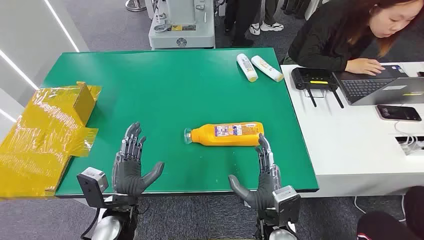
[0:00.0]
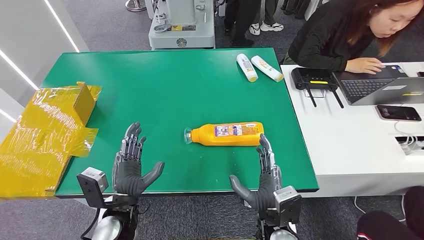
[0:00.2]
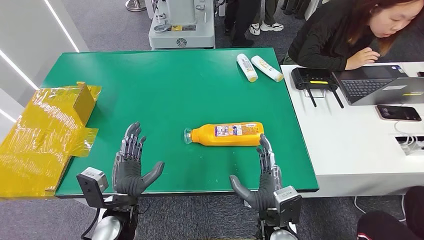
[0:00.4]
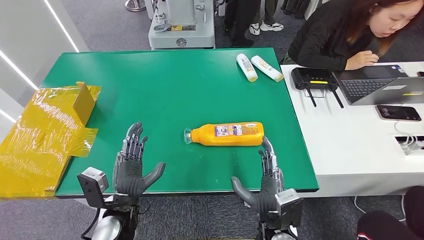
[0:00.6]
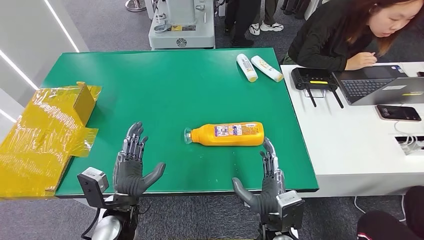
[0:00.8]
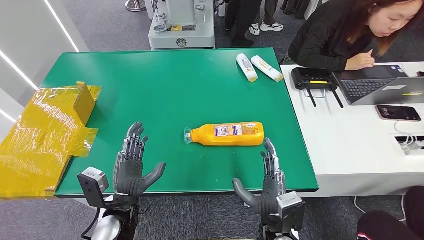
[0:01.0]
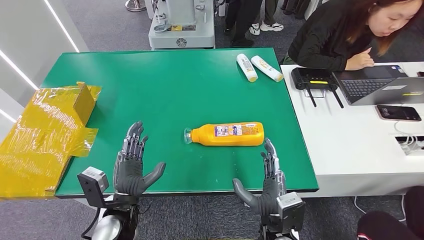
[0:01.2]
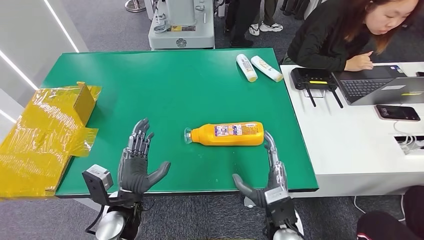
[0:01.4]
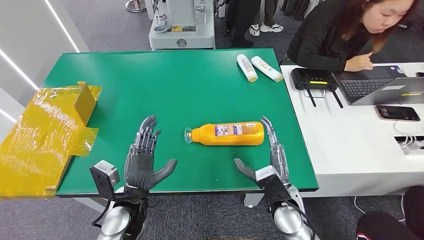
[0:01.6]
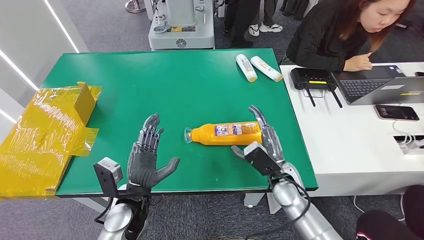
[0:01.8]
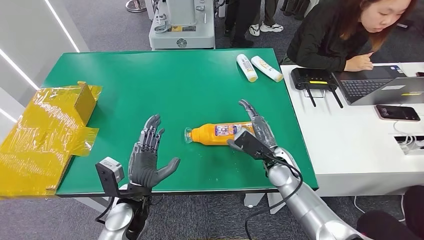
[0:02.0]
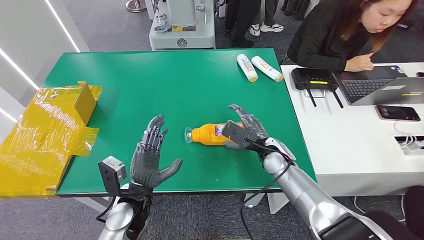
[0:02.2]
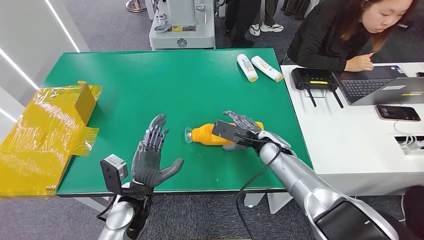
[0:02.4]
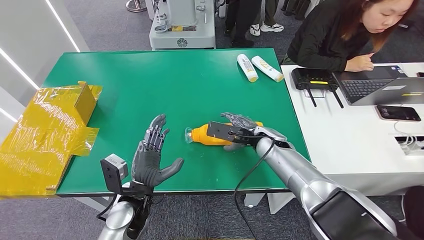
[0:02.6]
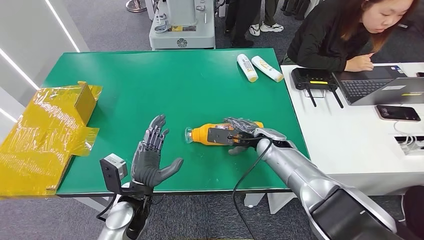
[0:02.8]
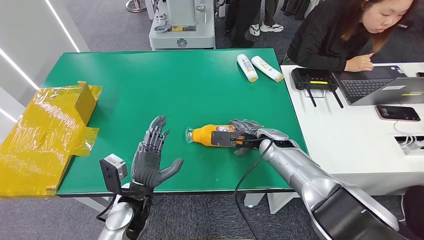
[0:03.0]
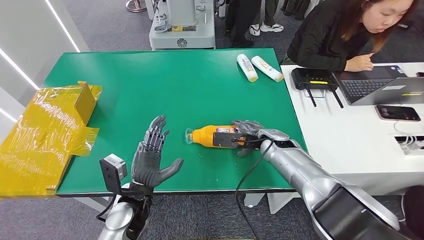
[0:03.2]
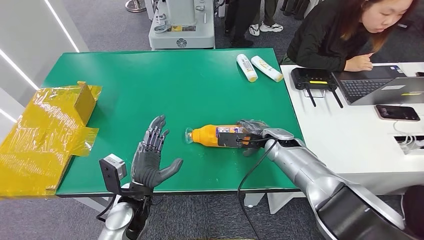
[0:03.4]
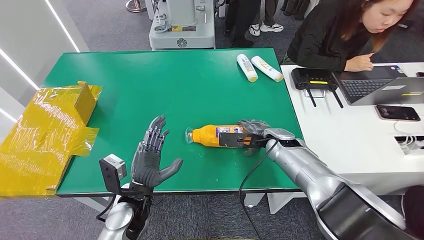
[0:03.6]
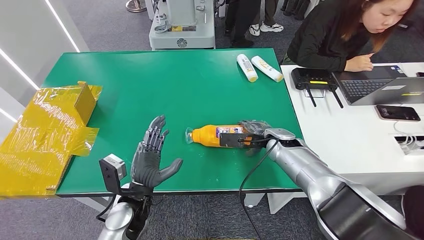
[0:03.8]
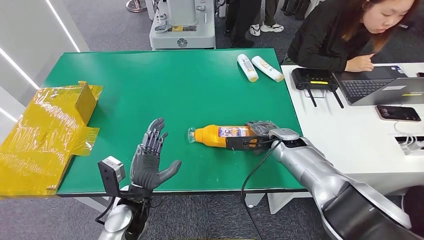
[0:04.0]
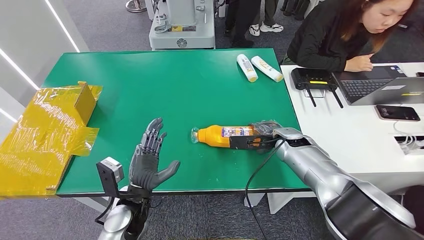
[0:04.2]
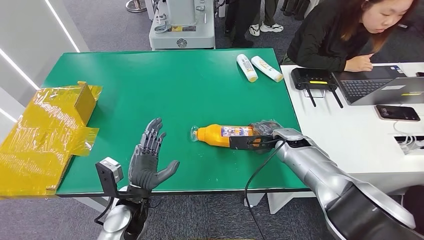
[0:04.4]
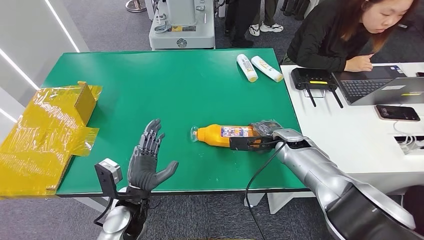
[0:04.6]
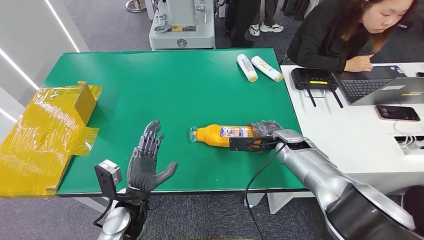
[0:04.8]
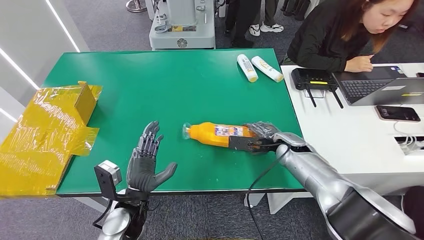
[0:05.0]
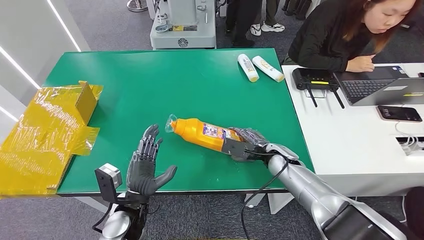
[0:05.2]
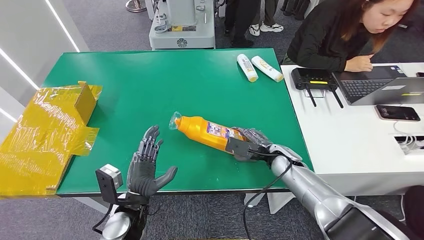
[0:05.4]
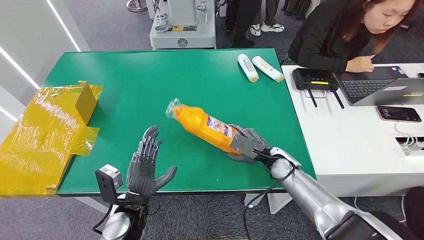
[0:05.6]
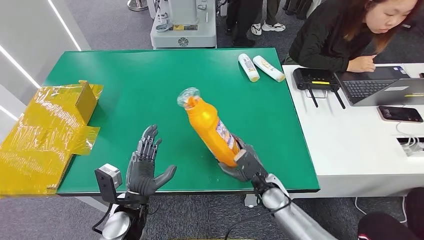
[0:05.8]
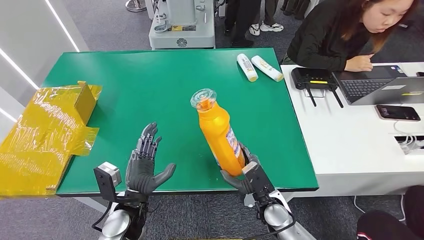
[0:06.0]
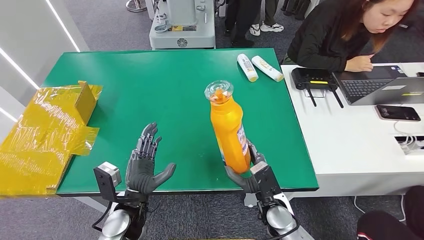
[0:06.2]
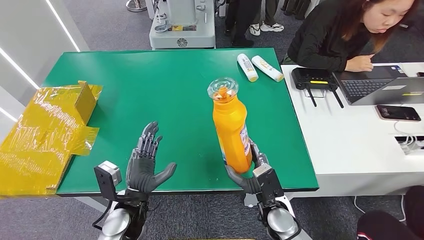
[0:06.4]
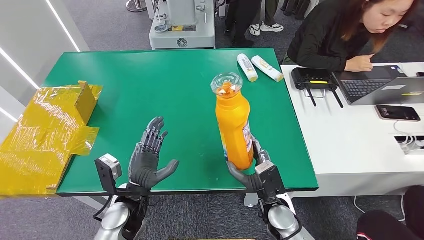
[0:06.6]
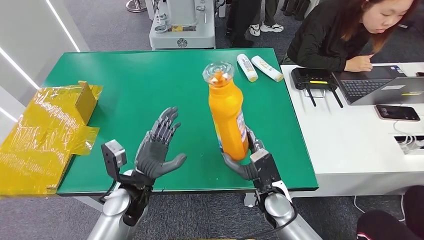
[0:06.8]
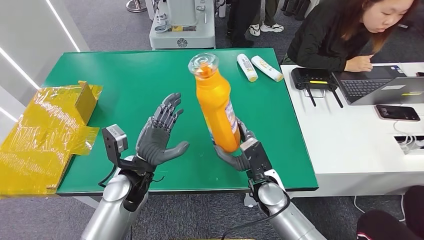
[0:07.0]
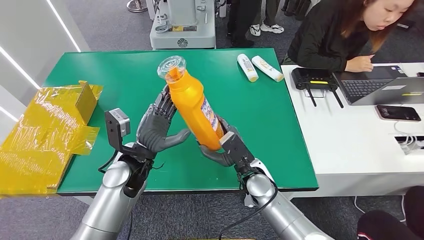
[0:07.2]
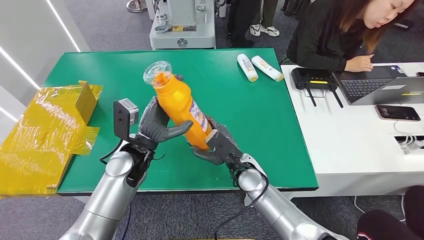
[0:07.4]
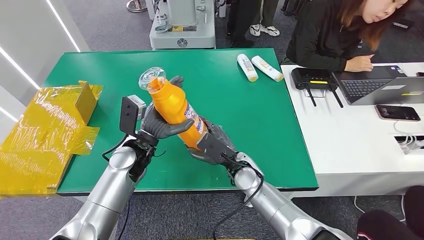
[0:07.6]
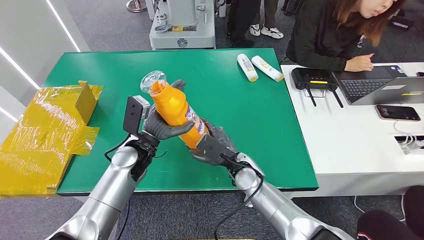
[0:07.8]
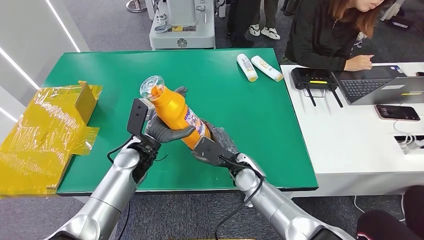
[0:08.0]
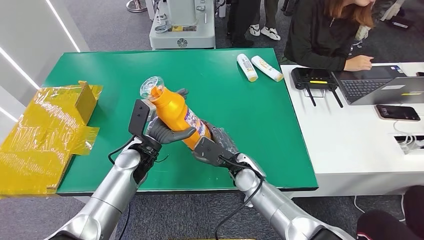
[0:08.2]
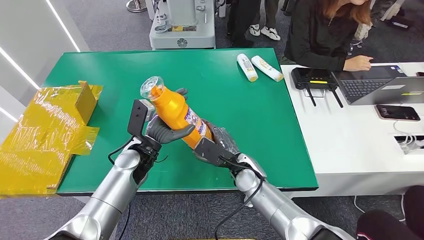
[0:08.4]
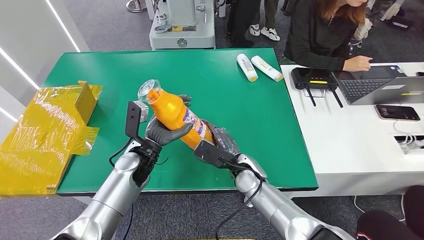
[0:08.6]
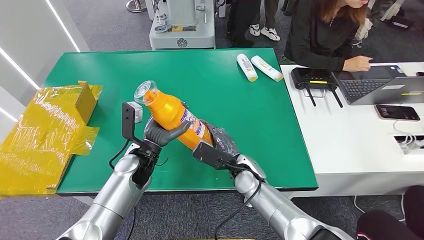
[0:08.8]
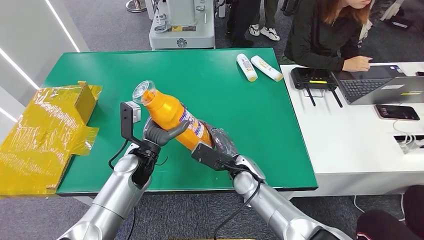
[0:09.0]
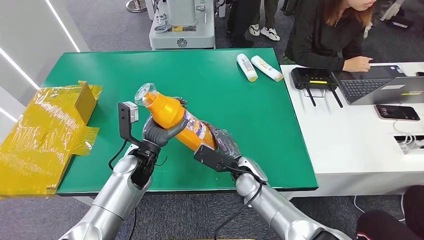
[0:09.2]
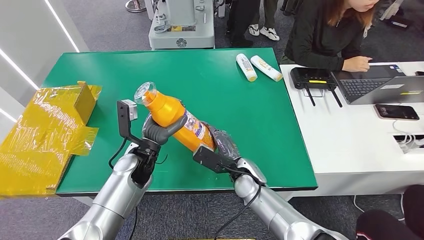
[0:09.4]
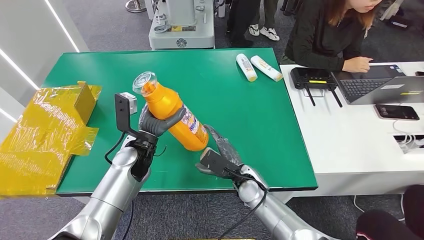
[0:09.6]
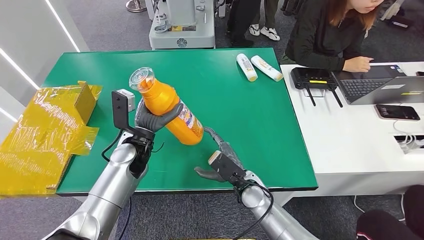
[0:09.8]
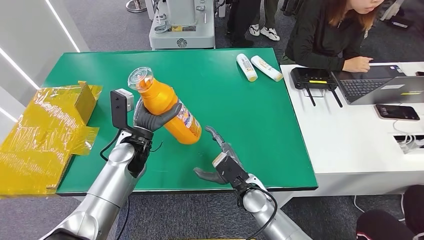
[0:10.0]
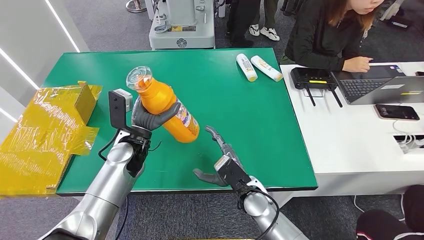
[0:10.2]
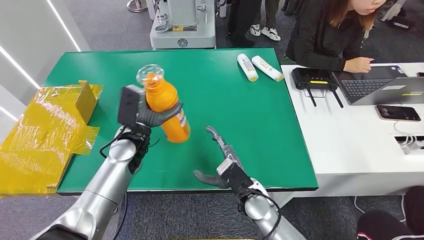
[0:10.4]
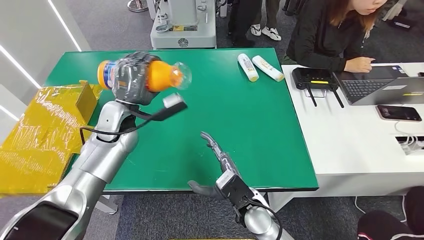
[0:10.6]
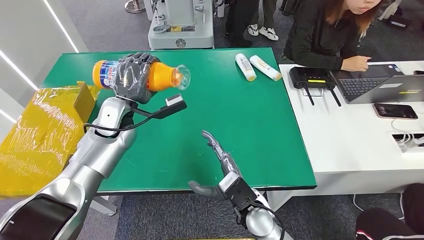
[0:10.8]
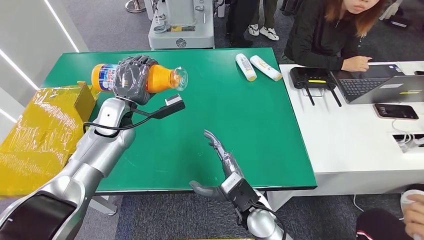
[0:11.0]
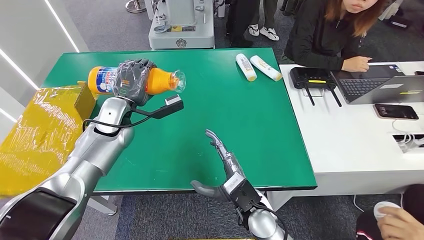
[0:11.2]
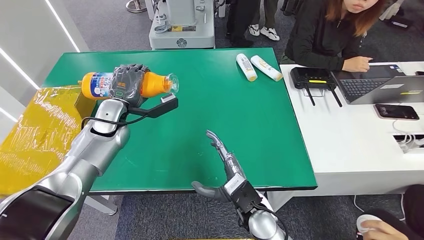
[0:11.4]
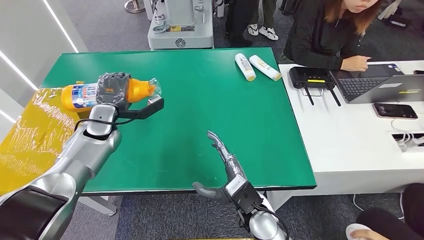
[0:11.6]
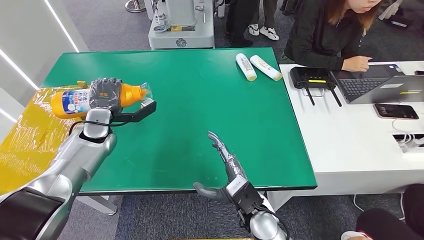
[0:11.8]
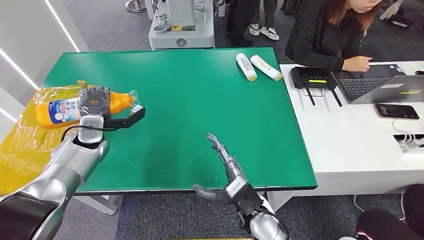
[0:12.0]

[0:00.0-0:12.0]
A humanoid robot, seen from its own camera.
Step, 0:00.0 to 0:06.6: Pick up the bottle from the table.
0:01.6 to 0:03.0: The right hand is displaced forward by some 15 cm.
0:03.0 to 0:04.4: The right hand shifts some 5 cm to the right.
0:04.4 to 0:06.0: The right hand heads backward and downward, covering about 20 cm.
0:06.0 to 0:07.6: The right hand heads to the left, forward and upward, covering about 15 cm; the left hand is displaced forward and upward by some 15 cm.
0:07.6 to 0:09.0: The hands stay close to where they were, moving slightly.
0:09.0 to 0:10.4: The left hand changes place by approximately 5 cm. Meanwhile the right hand moves backward, roughly 5 cm.

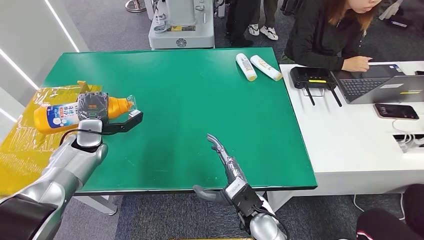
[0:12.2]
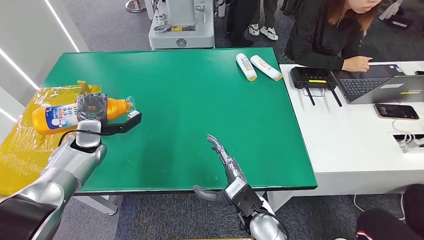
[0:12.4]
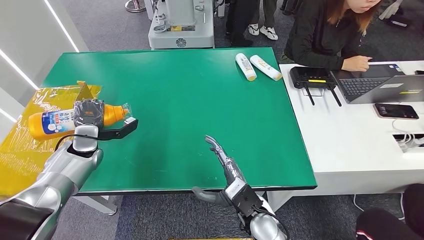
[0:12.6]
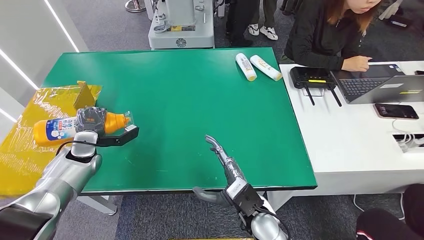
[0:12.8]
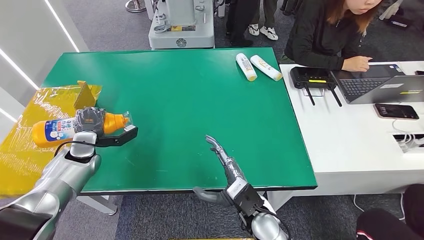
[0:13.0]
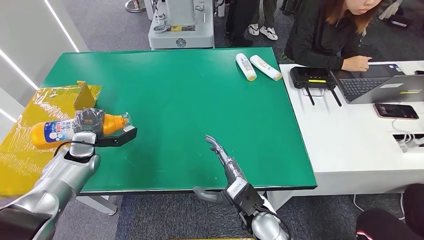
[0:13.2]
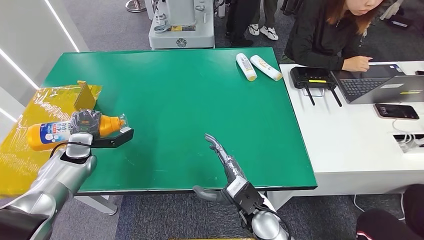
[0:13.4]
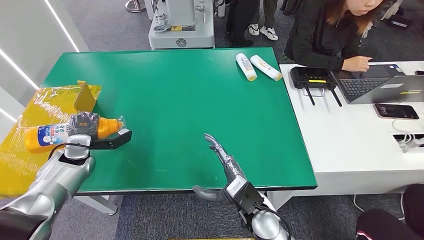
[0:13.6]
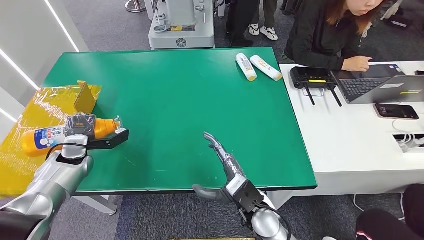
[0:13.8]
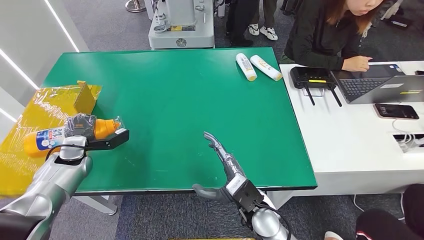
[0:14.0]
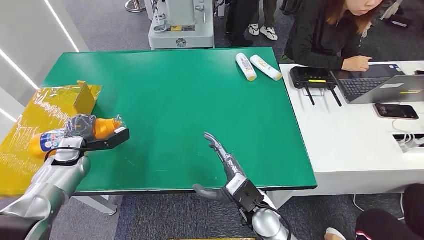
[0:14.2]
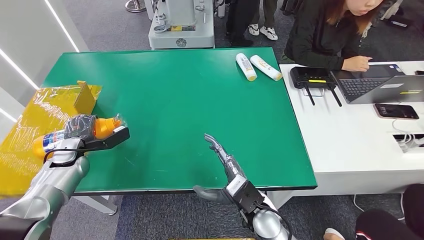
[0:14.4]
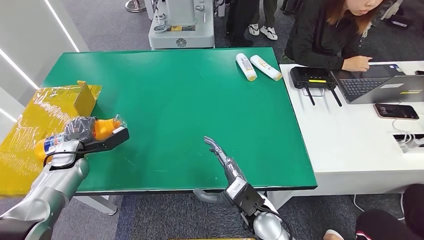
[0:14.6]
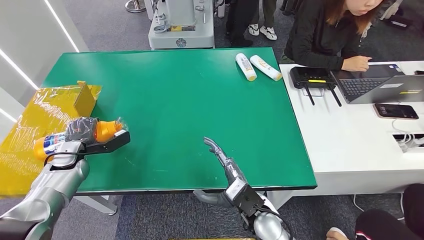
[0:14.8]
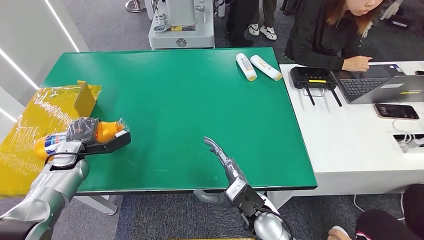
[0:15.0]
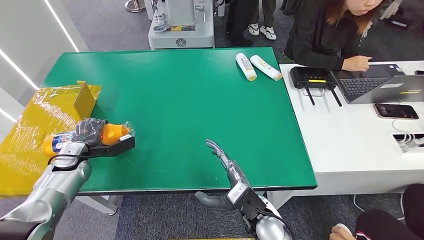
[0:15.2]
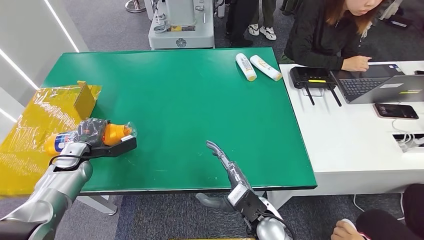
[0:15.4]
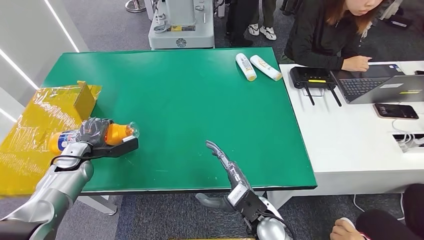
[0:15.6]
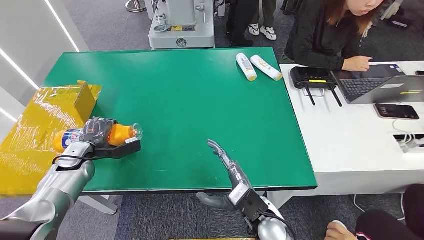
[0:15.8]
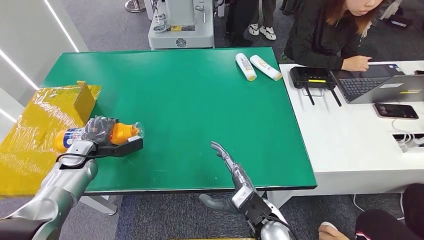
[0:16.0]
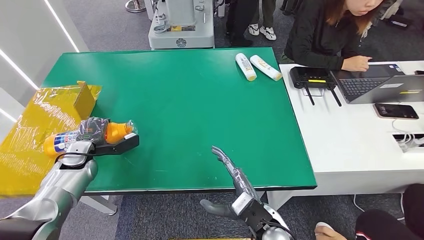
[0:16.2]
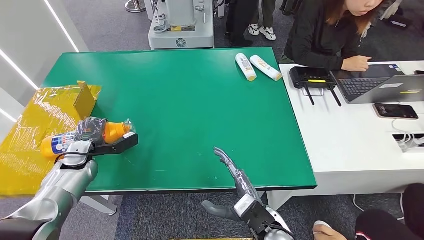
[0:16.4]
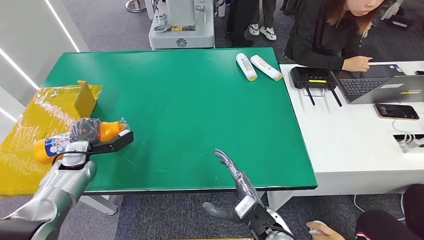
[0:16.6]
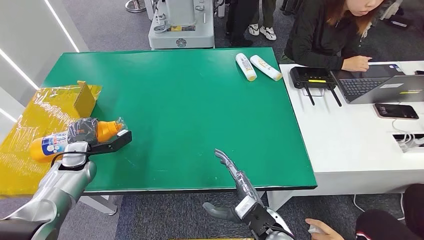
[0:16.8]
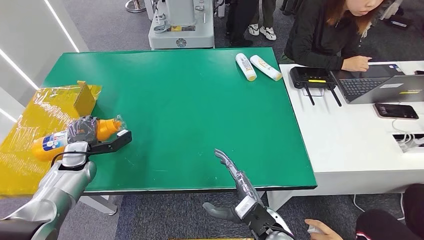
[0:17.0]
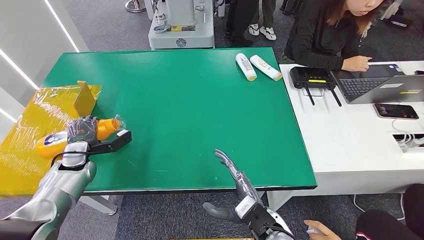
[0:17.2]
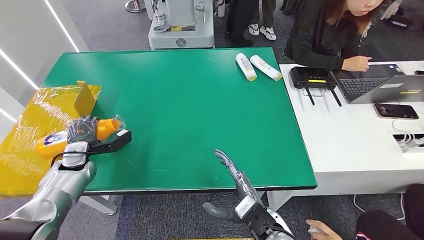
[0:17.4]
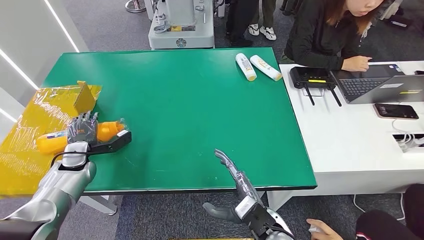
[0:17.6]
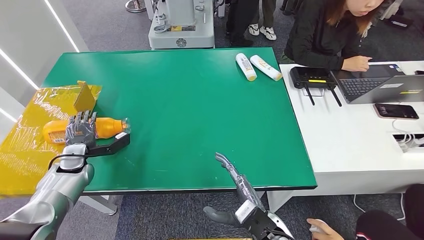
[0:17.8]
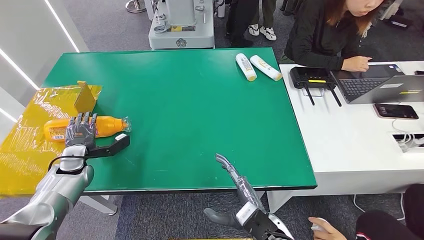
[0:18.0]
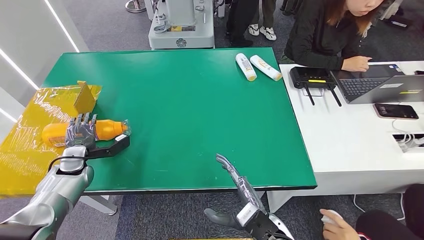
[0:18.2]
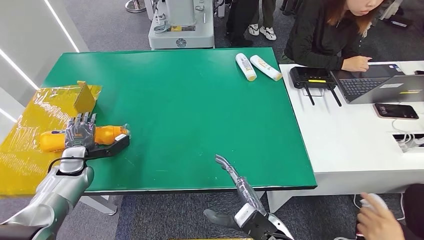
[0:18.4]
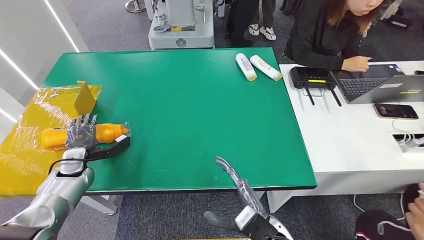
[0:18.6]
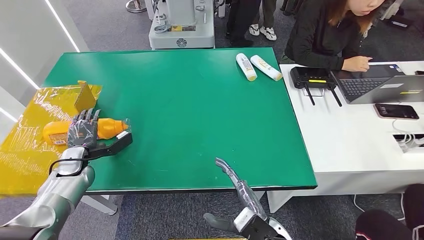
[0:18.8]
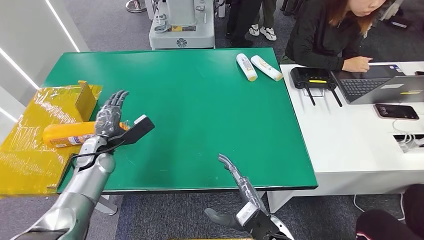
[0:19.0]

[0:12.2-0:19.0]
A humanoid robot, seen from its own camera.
0:12.2 to 0:13.6: The left hand changes place by approximately 5 cm.
0:15.0 to 0:17.6: There are only small adjustments of the hands.
0:17.6 to 0:19.0: The left hand shifts about 5 cm to the right.
